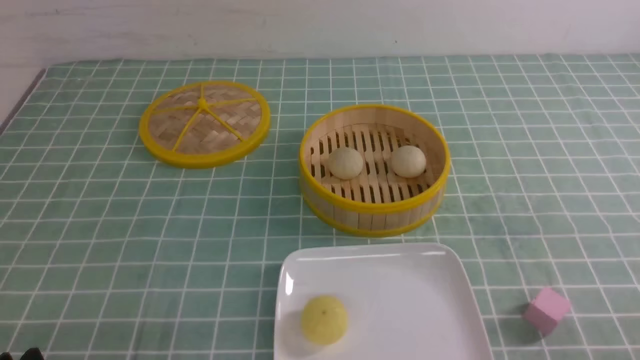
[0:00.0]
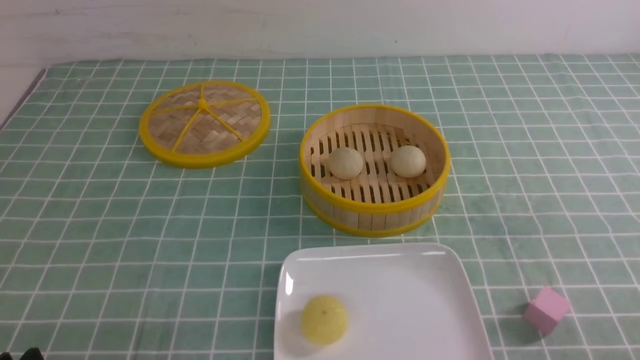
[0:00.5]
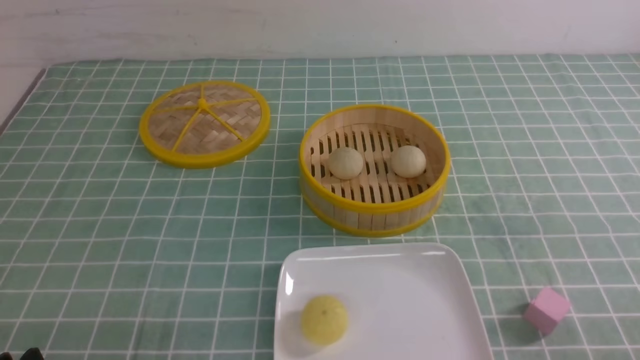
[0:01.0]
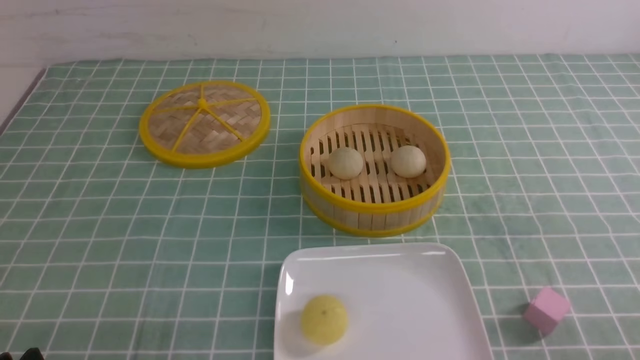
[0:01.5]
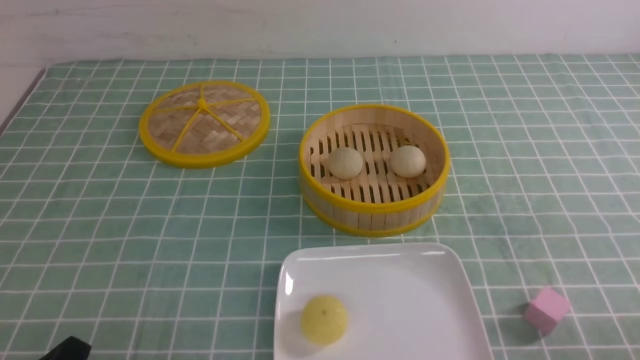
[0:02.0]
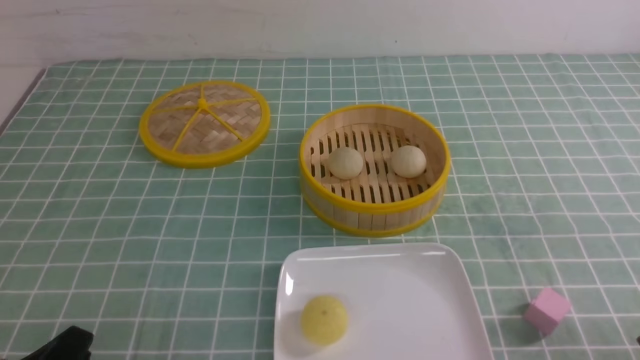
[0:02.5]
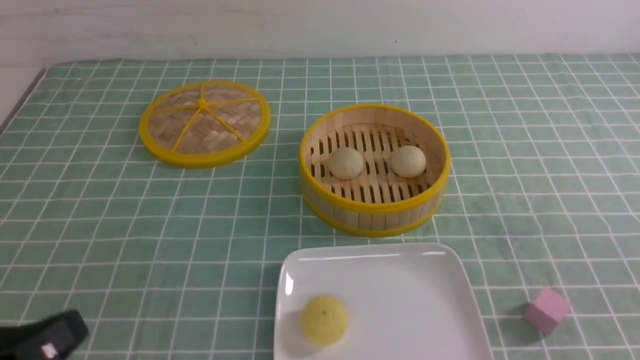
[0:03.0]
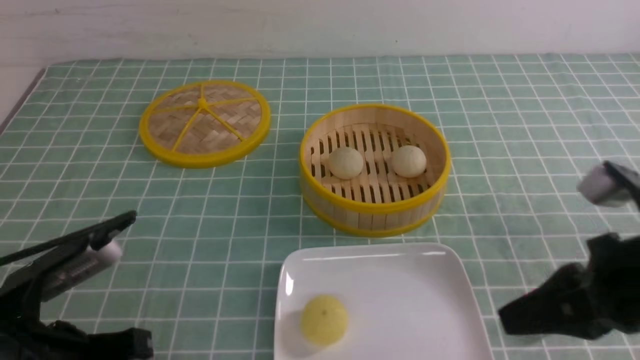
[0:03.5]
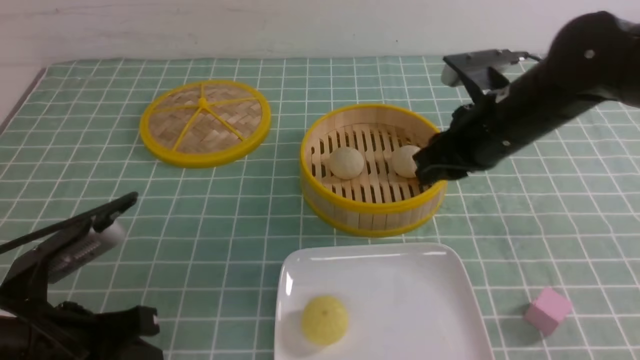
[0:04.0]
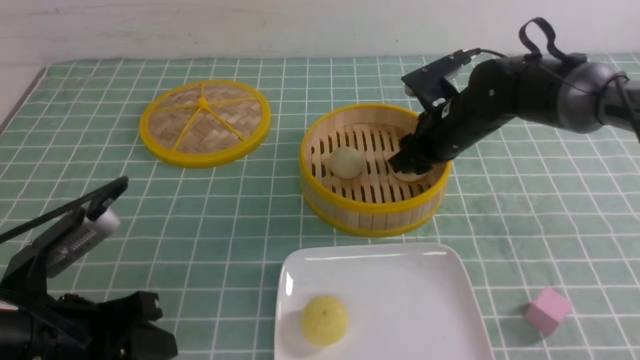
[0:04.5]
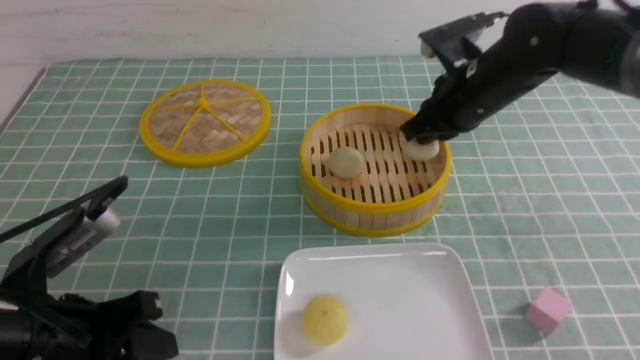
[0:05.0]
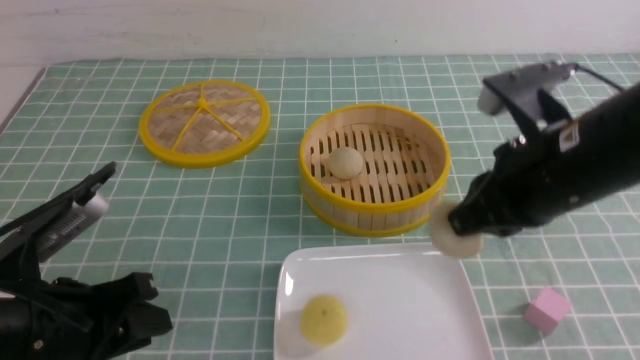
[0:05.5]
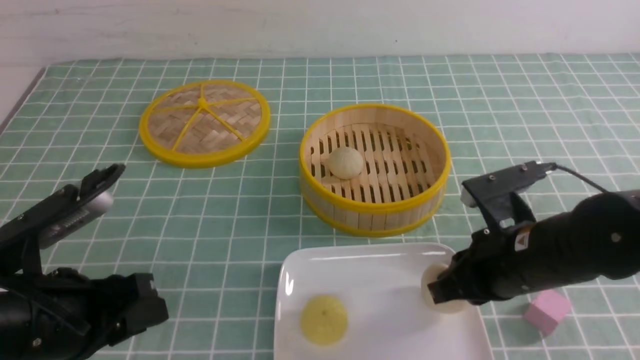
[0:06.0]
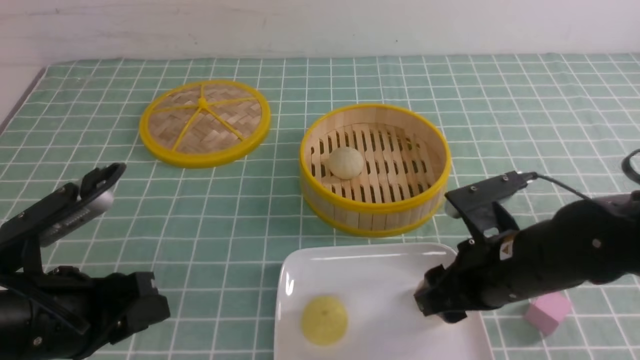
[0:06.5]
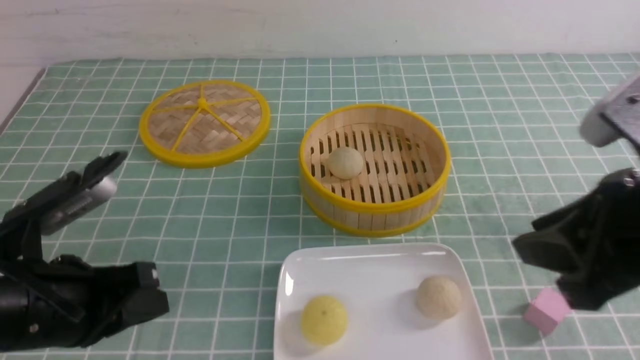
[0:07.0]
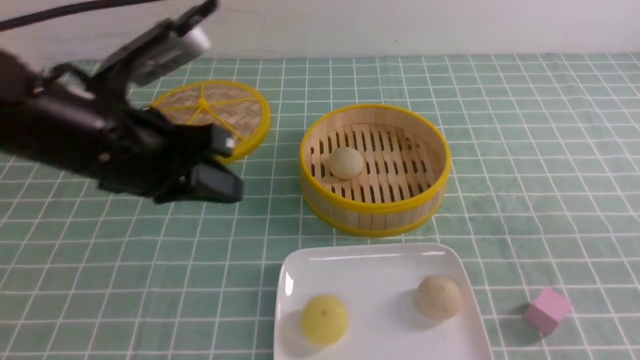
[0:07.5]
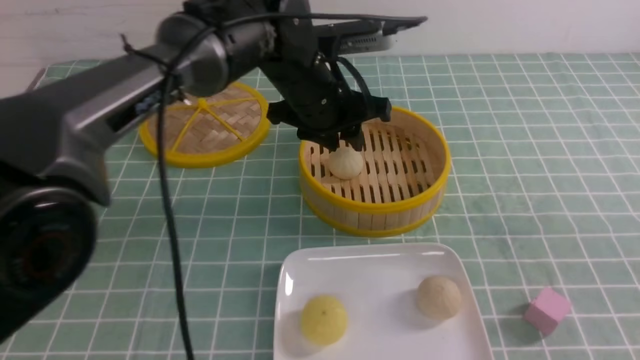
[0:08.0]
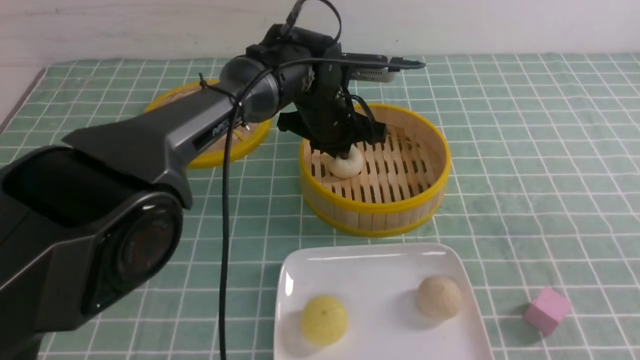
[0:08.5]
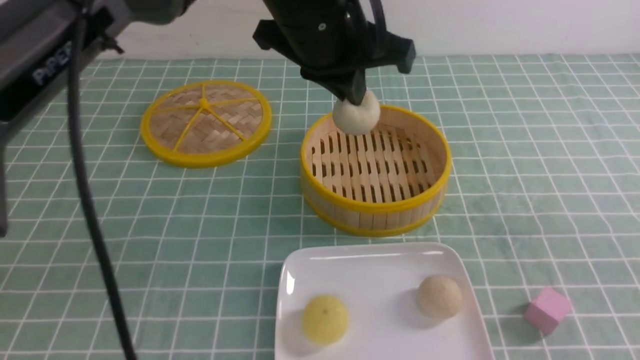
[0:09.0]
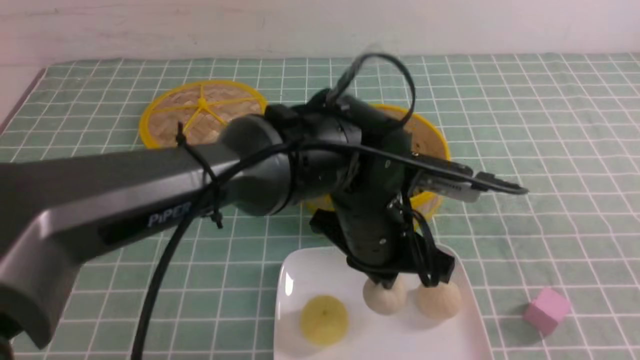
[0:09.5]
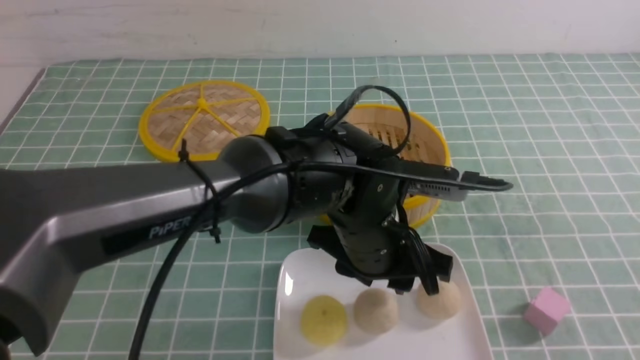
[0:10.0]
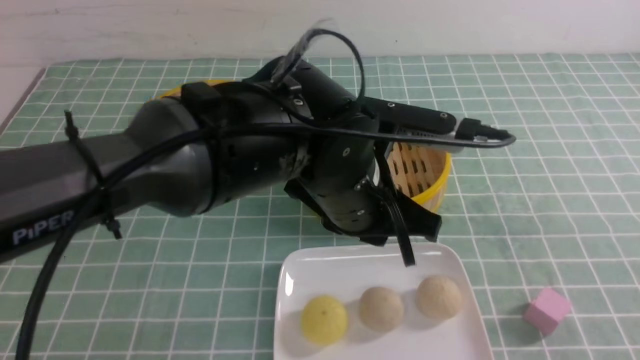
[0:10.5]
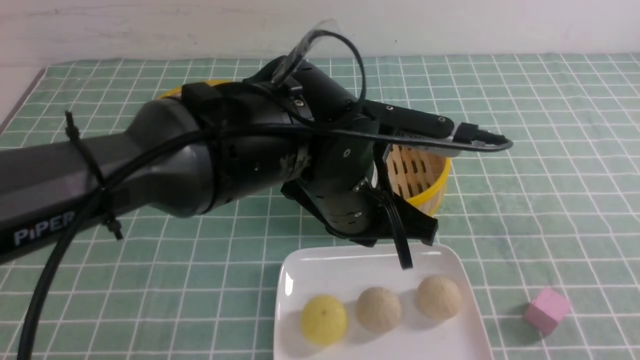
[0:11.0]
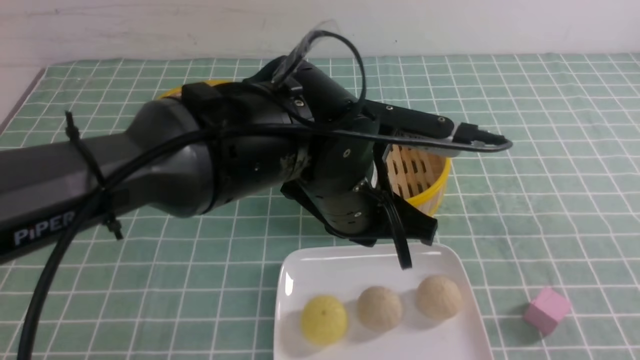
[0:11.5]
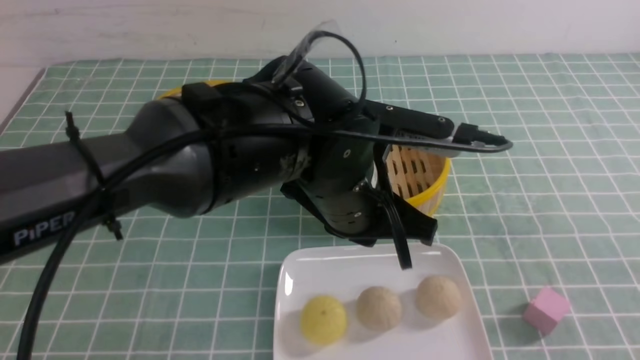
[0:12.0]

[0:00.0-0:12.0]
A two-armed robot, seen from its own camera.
Step, 0:00.0 to 0:04.5: use the right arm to grab the steamed stuffed bun that is closest to it.
Step, 0:05.0 to 0:06.5: use the right arm to put the steamed stuffed bun into the plate.
Step, 0:07.0 to 0:08.5: use the left arm to grab the steamed stuffed bun that is closest to it.
Step, 0:09.0 to 0:09.5: use the left arm to put the steamed stuffed bun into the plate.
0:02.0 to 0:04.0: The left gripper shifts about 10 cm forward, and closes; the right gripper heads forward and to the left, covering roughly 35 cm, and closes, then reopens.
0:04.0 to 0:06.0: The right gripper heads backward and downward, covering about 15 cm, and closes. Meanwhile the left gripper opens up.
0:06.0 to 0:08.0: The left gripper heads forward and to the right, covering some 30 cm, and closes, then reopens. The right gripper shifts roughly 30 cm backward, upward and to the right, and opens, then closes again.
0:08.0 to 0:10.0: The left gripper travels backward by about 15 cm, and closes, then reopens, while the right gripper shifts by about 5 cm.
0:10.0 to 0:12.0: The left gripper shifts about 5 cm upward, and closes. Meanwhile the right gripper goes approximately 10 cm downward.

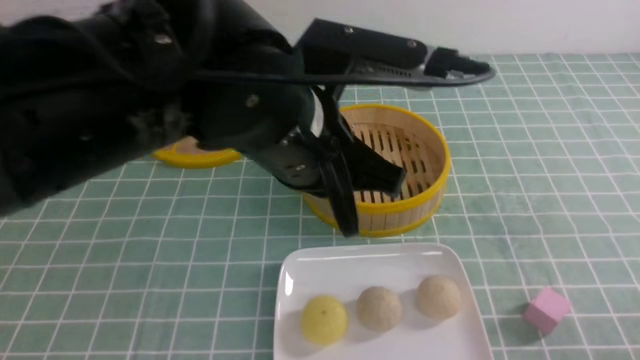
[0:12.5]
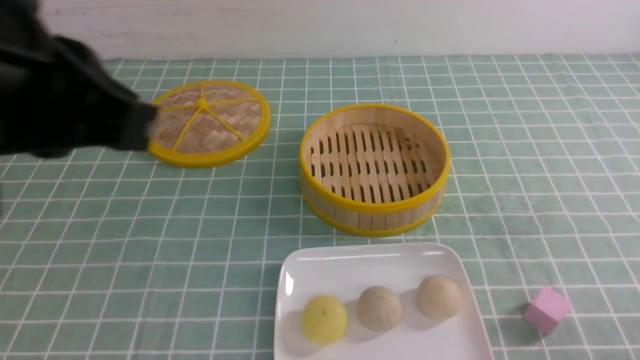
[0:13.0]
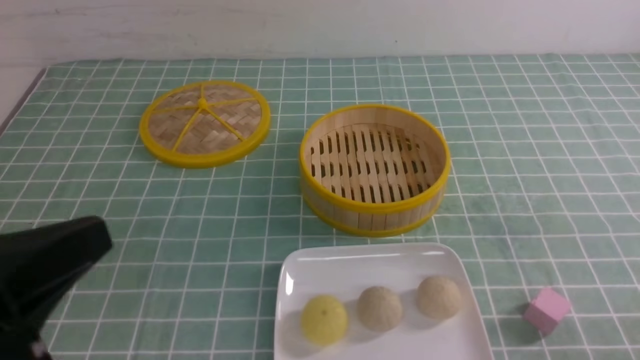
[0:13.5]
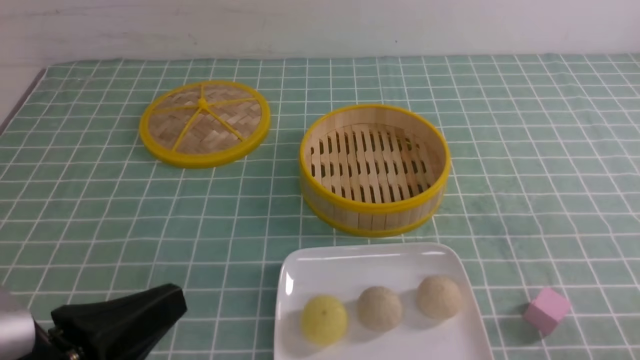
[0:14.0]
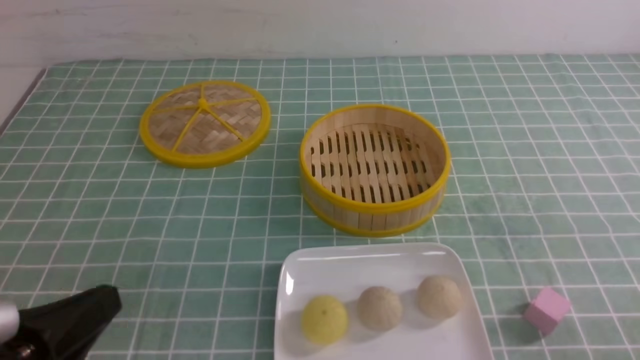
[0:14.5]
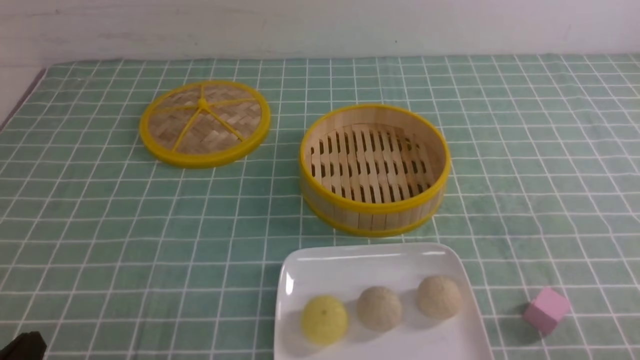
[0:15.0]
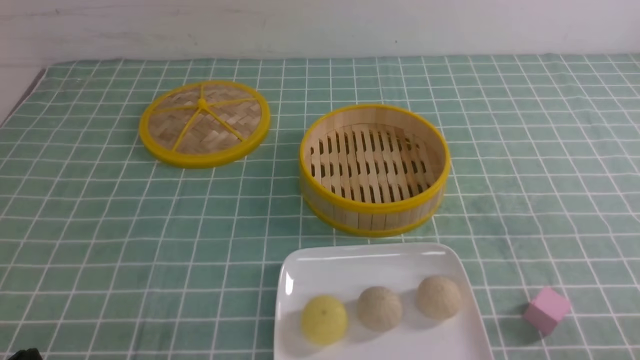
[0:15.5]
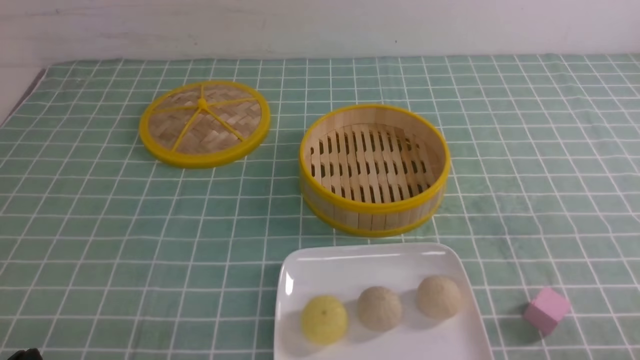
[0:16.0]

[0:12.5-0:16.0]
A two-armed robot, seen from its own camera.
0:12.5 to 0:14.5: The left gripper goes about 25 cm to the left, backward and downward.
0:14.5 to 0:16.0: The left gripper goes some 10 cm downward.

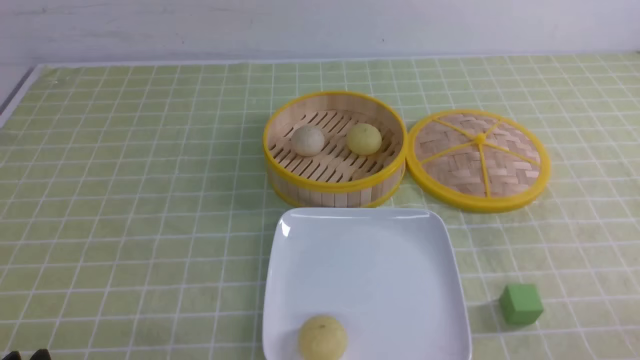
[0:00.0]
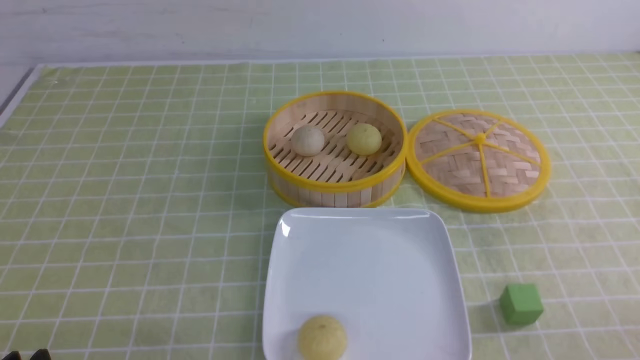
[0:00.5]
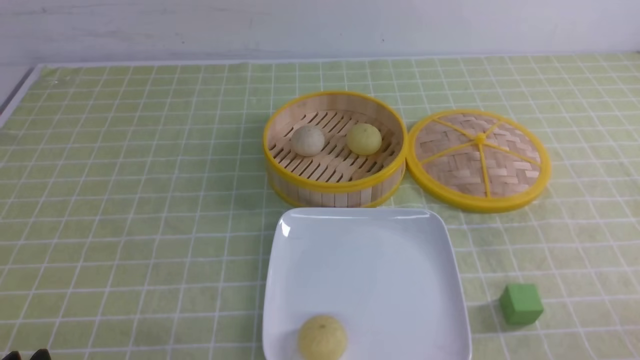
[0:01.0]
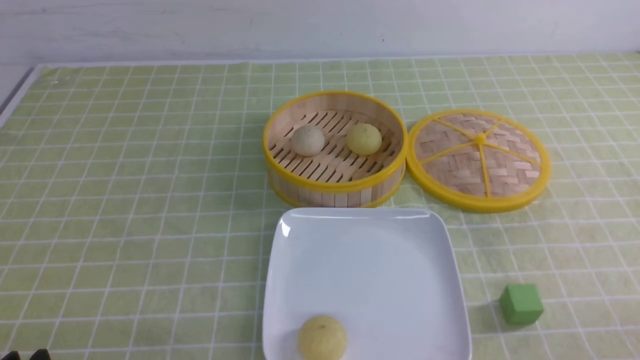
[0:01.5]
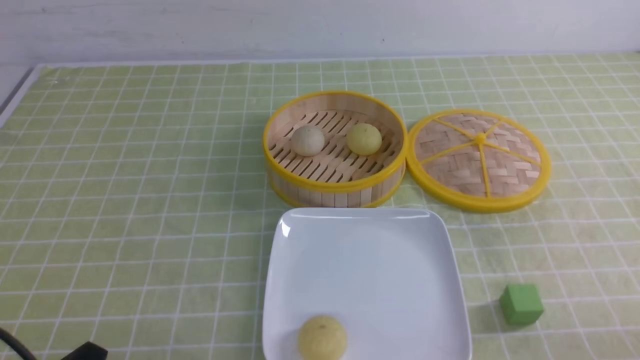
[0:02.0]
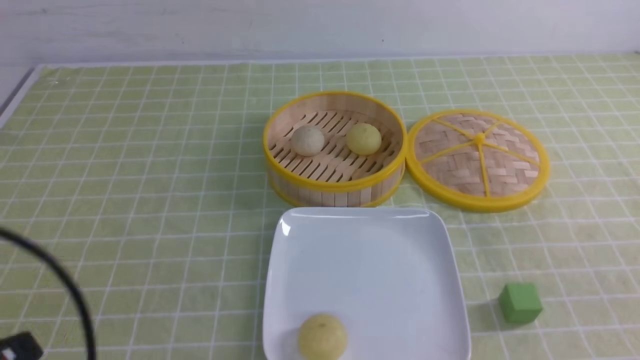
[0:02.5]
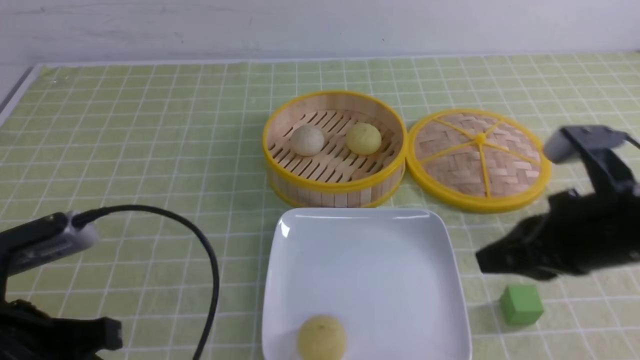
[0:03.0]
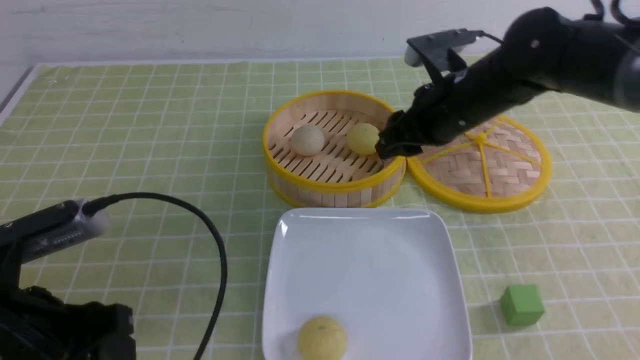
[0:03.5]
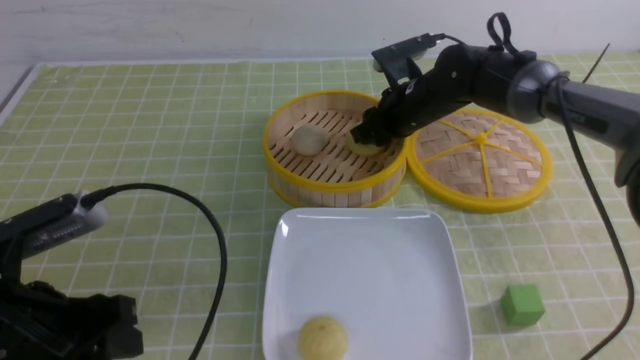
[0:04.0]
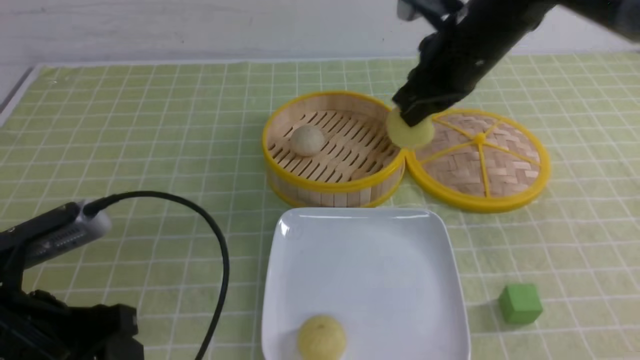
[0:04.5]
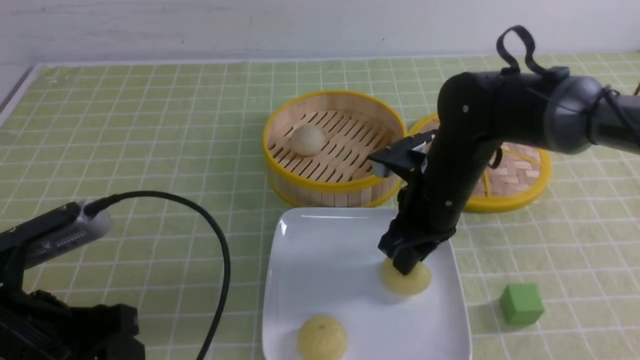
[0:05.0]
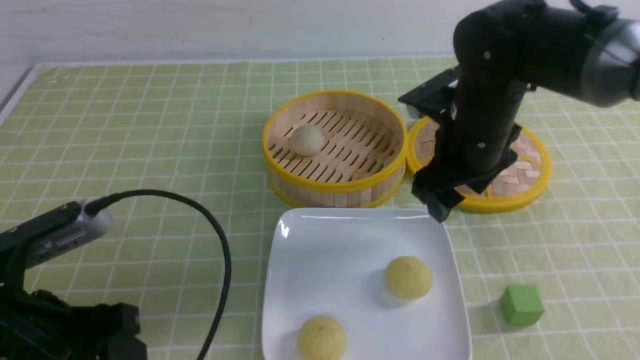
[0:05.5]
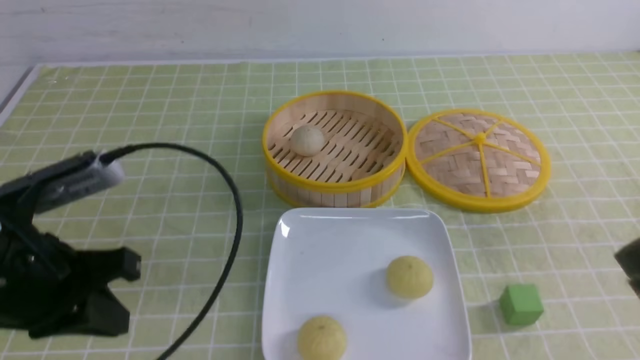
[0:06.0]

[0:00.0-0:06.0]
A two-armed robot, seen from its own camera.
Step, 0:00.0 to 0:04.0: use the right arm to grab the steamed stuffed bun that is closest to it.
Step, 0:04.5 to 0:05.0: use the right arm to put the steamed stuffed bun into the plate.
0:02.0 to 0:04.0: The right gripper is displaced forward and to the left by about 50 cm, and closes and opens again, while the left gripper shifts roughly 10 cm forward and upward, and closes, then opens again.
0:04.0 to 0:06.0: The right gripper travels backward and upward by some 35 cm, and closes. The left gripper ends up approximately 5 cm from where it was, and closes up.
